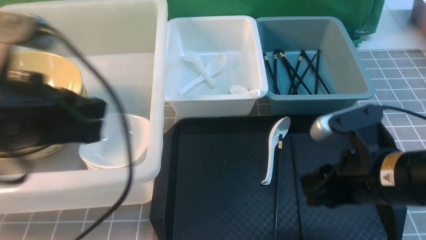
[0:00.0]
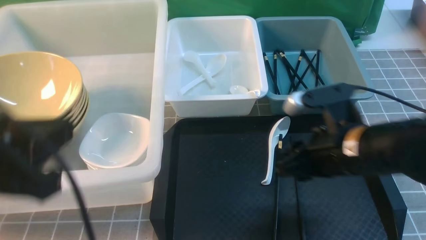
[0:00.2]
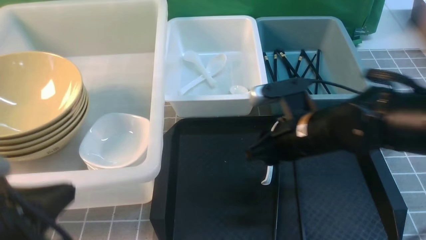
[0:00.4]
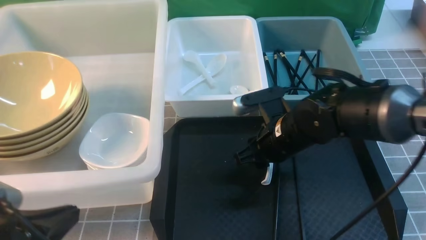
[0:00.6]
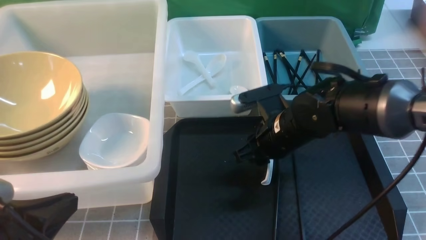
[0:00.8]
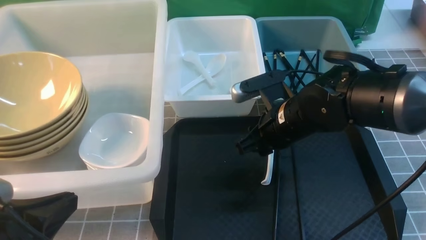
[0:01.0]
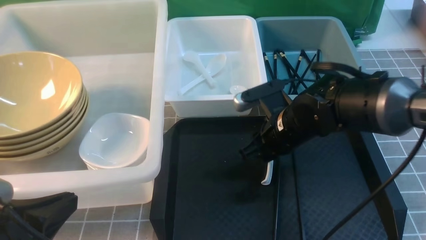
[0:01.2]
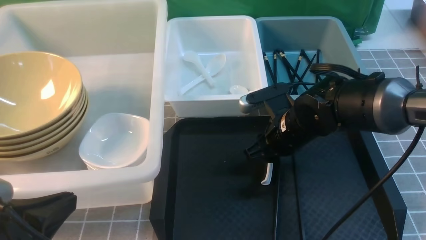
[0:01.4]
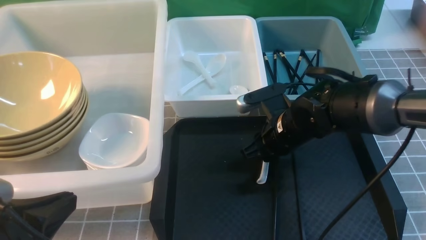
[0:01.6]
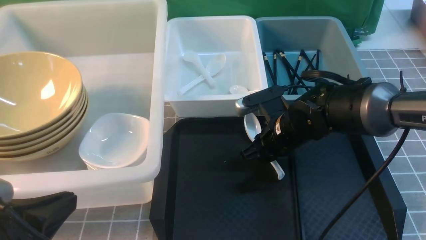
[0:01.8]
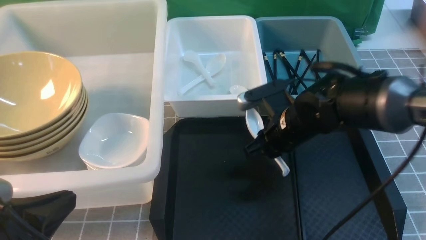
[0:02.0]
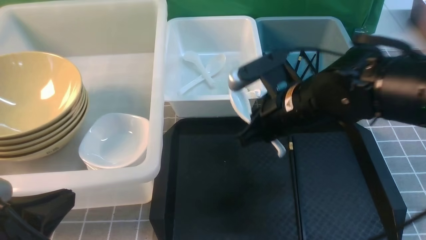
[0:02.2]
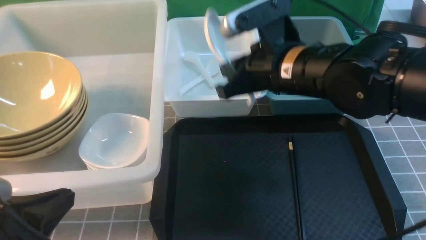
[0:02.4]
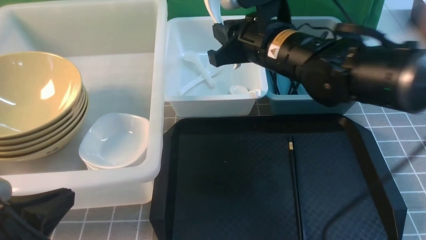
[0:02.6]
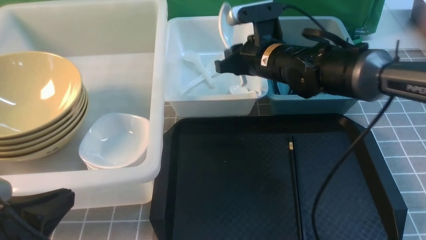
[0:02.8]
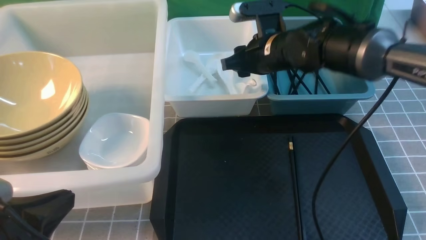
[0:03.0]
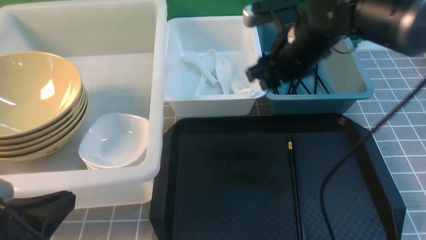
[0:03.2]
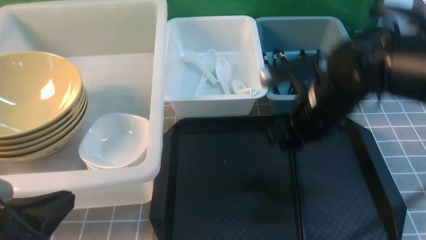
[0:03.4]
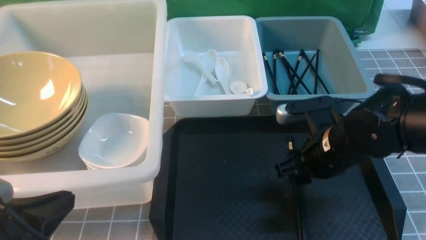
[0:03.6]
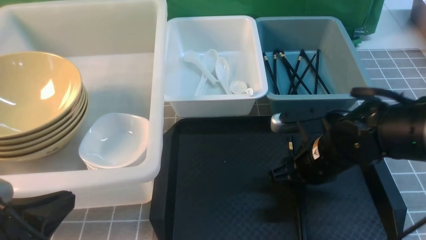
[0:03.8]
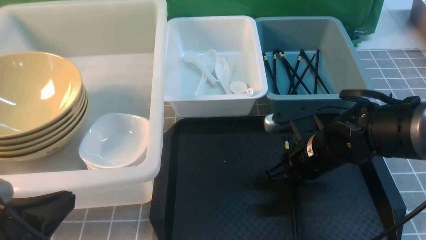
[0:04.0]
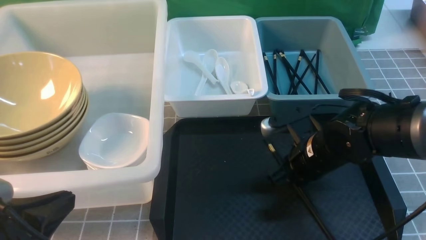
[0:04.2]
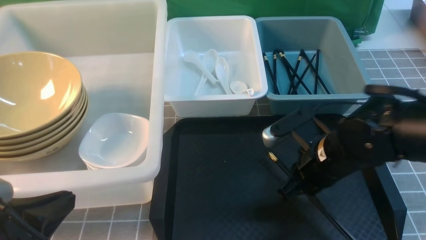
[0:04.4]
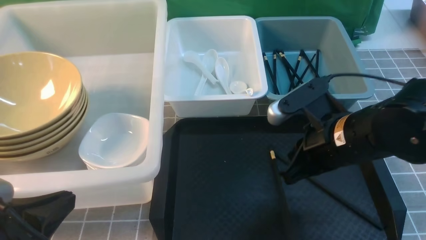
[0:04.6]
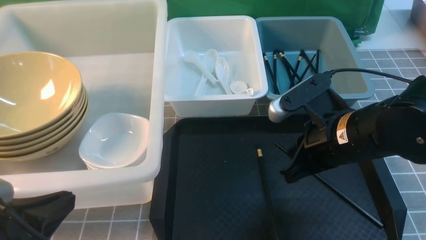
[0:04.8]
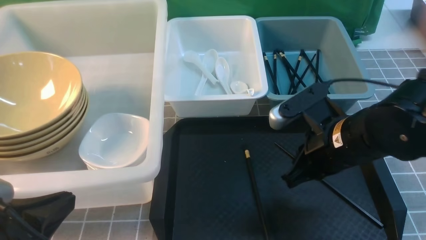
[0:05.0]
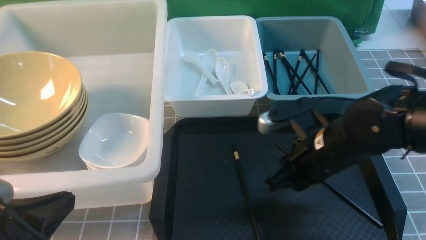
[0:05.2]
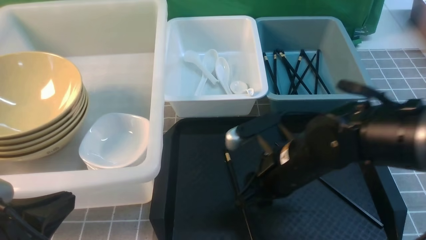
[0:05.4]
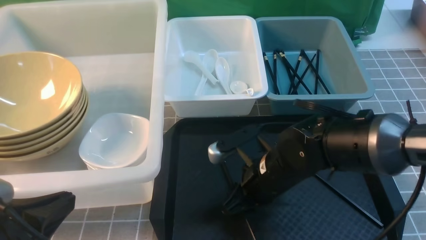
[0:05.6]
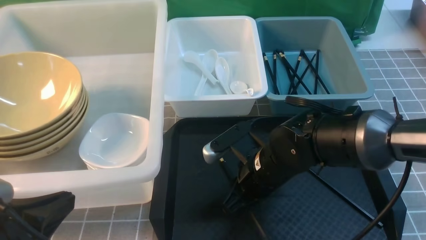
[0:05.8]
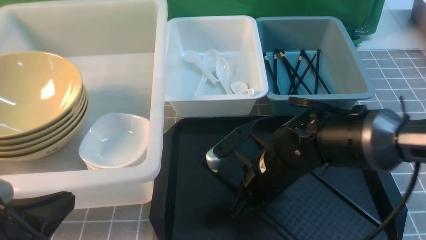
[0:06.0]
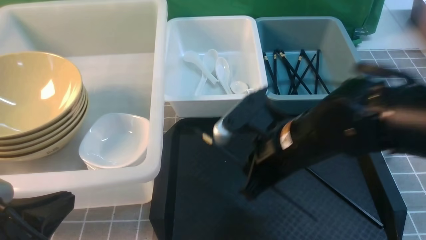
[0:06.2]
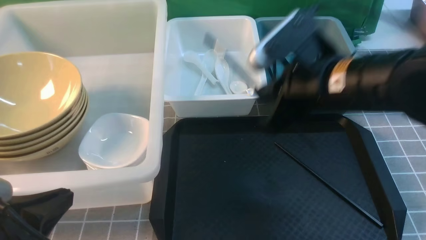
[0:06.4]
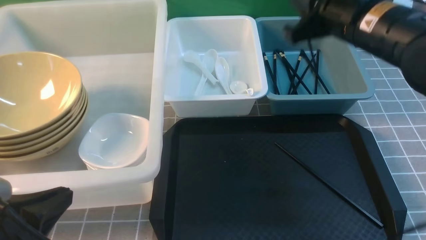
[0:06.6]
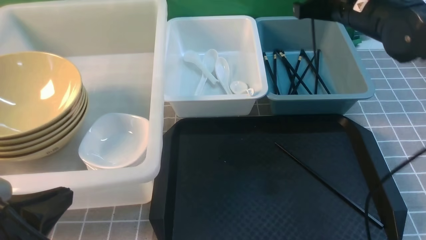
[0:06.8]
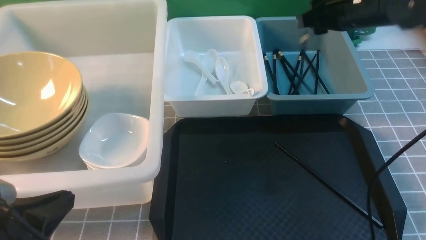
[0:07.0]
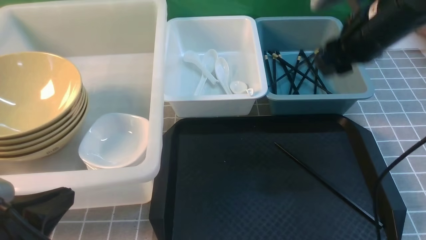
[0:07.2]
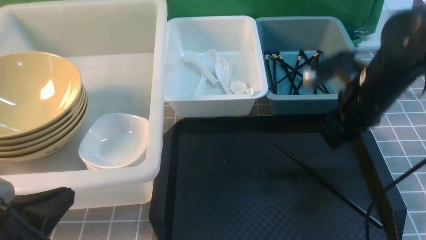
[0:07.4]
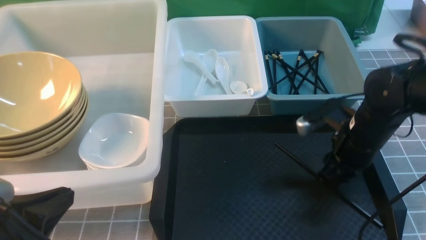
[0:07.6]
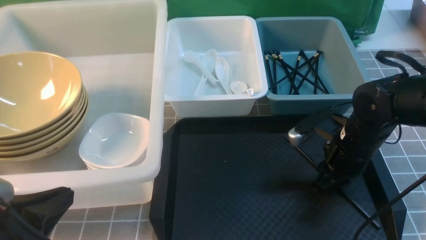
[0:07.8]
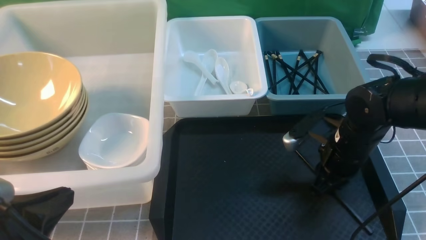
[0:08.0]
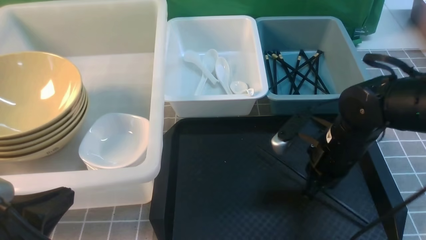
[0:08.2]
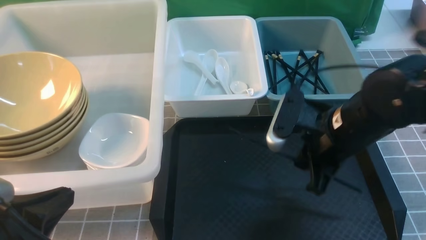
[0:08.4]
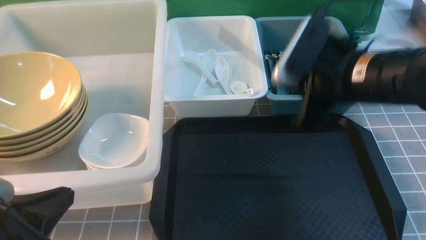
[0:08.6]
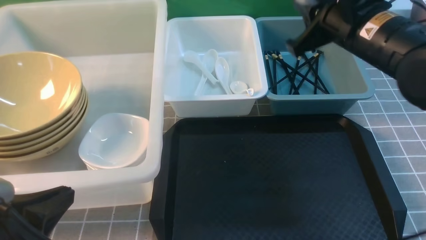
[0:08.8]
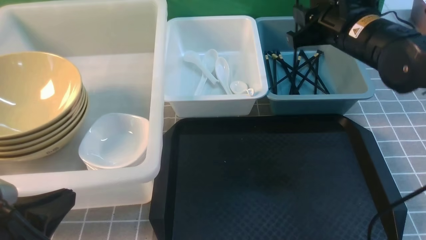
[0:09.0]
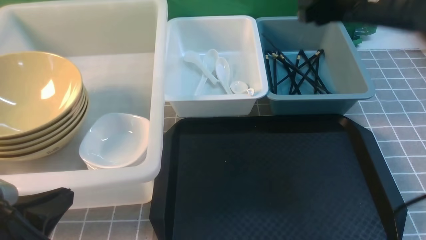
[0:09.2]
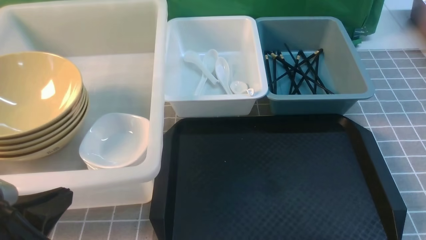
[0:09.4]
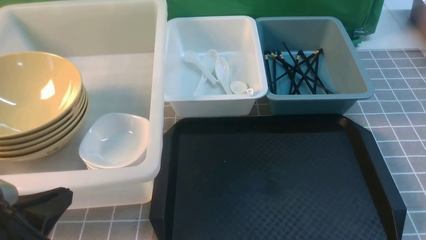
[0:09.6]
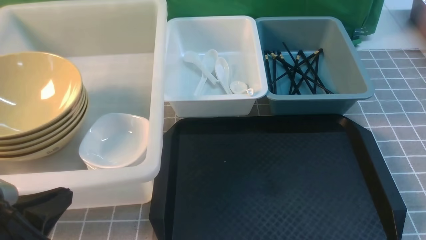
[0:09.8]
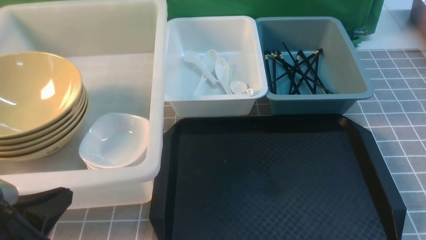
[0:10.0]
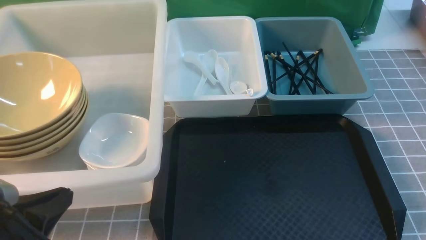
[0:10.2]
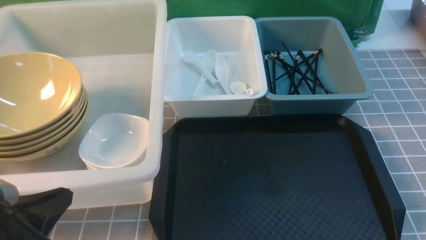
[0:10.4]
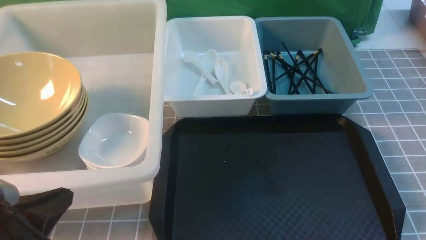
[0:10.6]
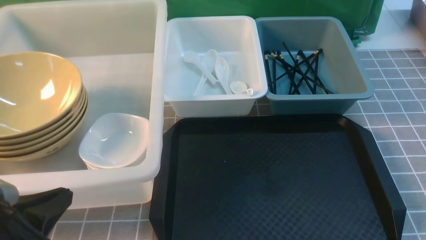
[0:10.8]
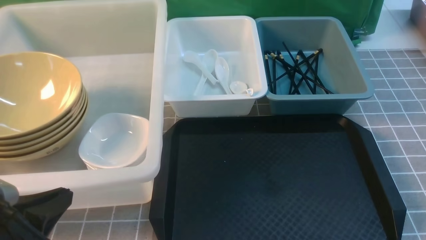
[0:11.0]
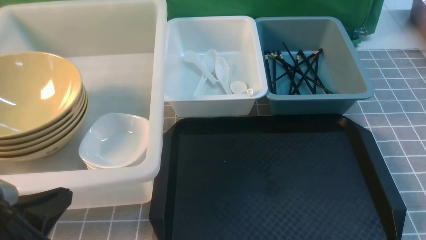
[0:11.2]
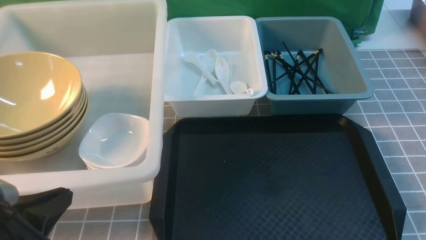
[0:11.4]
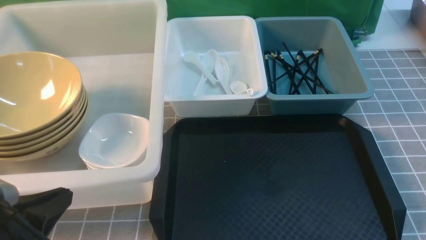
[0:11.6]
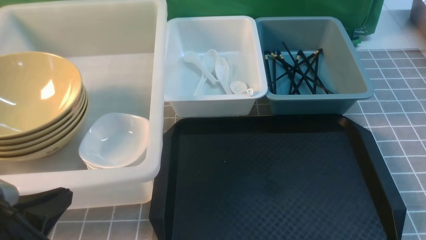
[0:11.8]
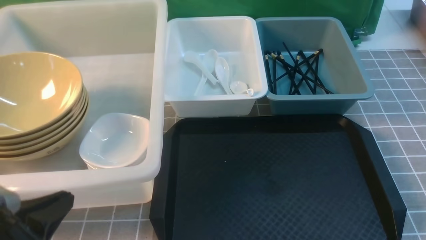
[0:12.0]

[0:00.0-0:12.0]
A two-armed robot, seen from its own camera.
Task of the whole recording: on grey table put chopsticks spoon bowls plates into blue grey white boxes.
Step, 0:00.0 to 0:02.0: use the right arm to grab the soup spoon in the middle.
Step, 0:02.2 to 0:03.0: use the right arm to put the soup spoon into the small storage box in the middle.
Step, 0:03.2 to 0:06.2: use the right arm to grab a chopstick.
Step, 0:06.4 to 0:07.0: use the right arm to put a chopstick into the small storage box on the right.
Step, 0:07.2 to 0:08.6: use the right arm to grab a chopstick.
Step, 0:08.8 to 0:09.2: use the right arm to put a chopstick into the small storage box on the right.
0:00.0 to 0:01.6: The right gripper goes some 15 cm forward, downward and to the left, while the left gripper is displaced downward and backward by roughly 10 cm.
0:01.6 to 0:03.0: The right gripper goes approximately 10 cm upward and forward.
0:03.0 to 0:04.4: The right gripper goes roughly 15 cm backward, and closes its fingers.
0:04.4 to 0:06.0: The right gripper travels to the left by approximately 5 cm, and opens, then closes again.
0:06.0 to 0:07.6: The right gripper moves to the right and forward, approximately 15 cm, and moves about 15 cm upward and comes back.
0:07.6 to 0:09.0: The right gripper moves upward, approximately 15 cm, and closes, then reopens.
0:09.0 to 0:10.4: The right gripper shifts about 35 cm backward and downward, and closes its fingers.

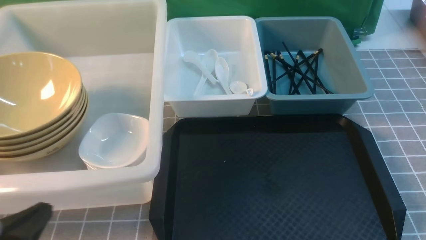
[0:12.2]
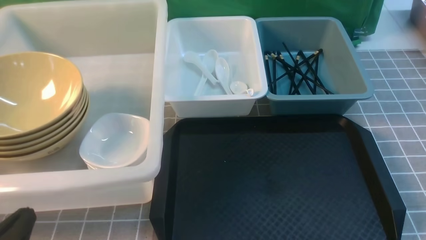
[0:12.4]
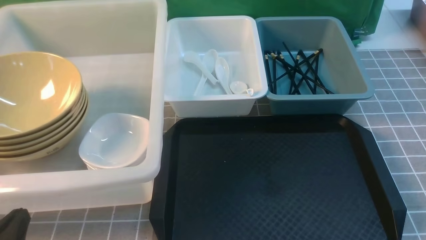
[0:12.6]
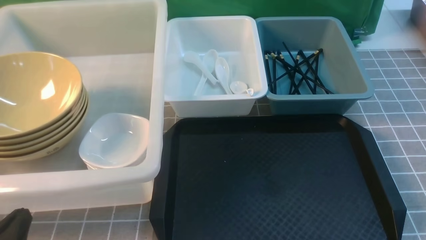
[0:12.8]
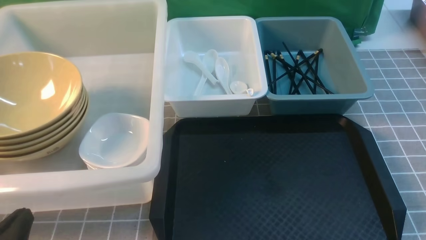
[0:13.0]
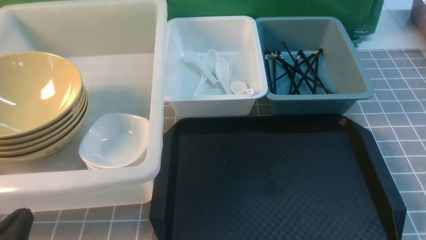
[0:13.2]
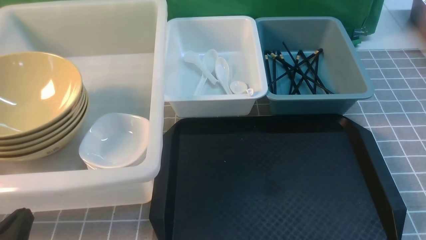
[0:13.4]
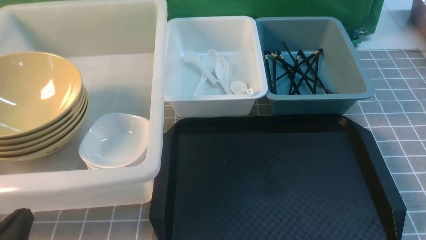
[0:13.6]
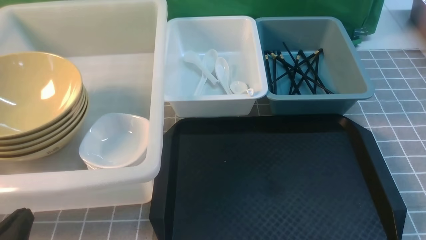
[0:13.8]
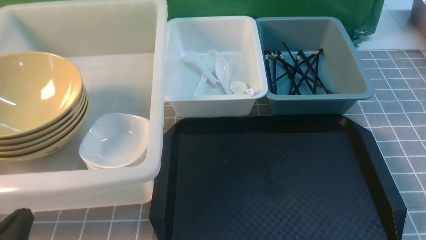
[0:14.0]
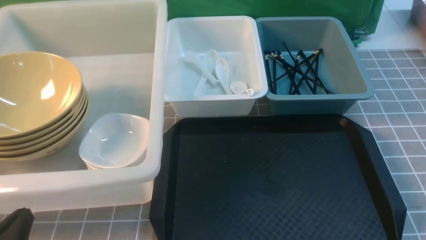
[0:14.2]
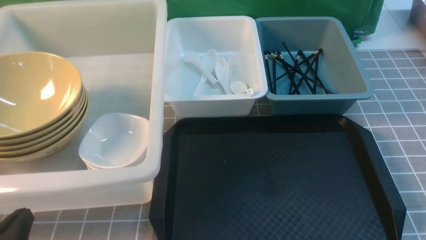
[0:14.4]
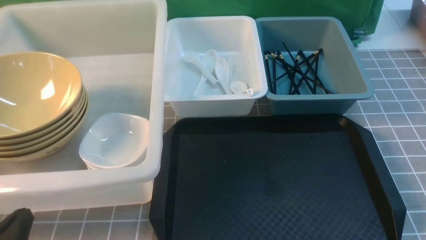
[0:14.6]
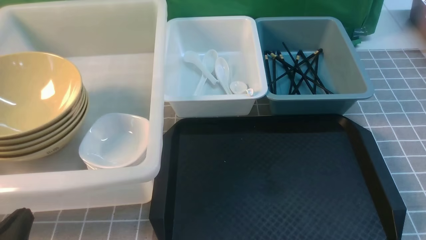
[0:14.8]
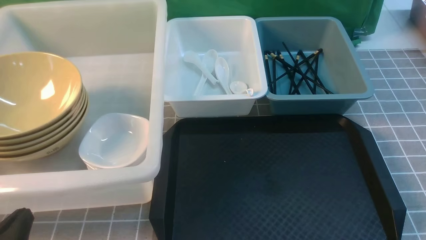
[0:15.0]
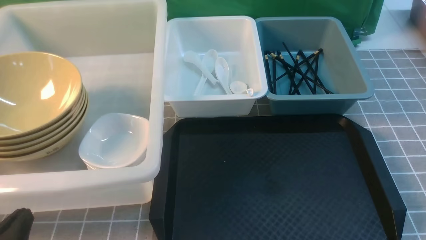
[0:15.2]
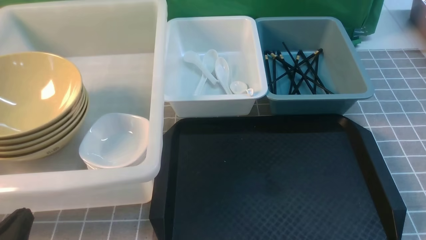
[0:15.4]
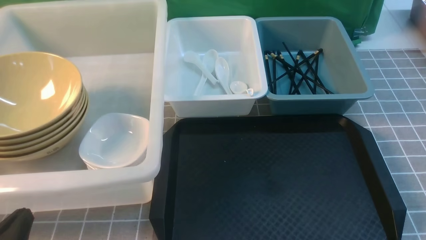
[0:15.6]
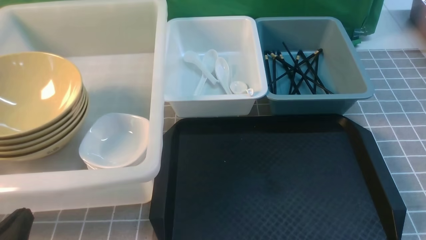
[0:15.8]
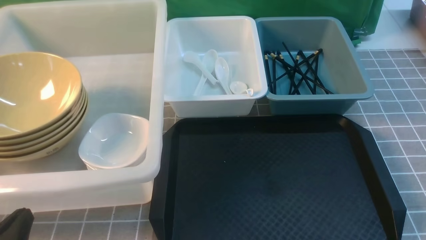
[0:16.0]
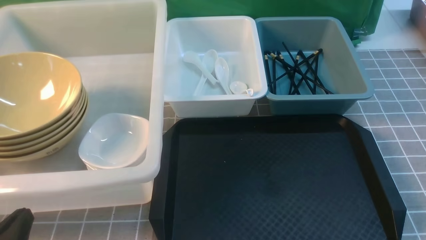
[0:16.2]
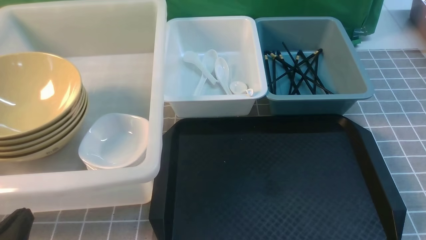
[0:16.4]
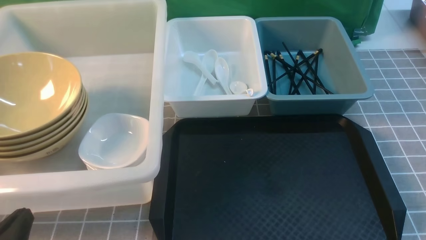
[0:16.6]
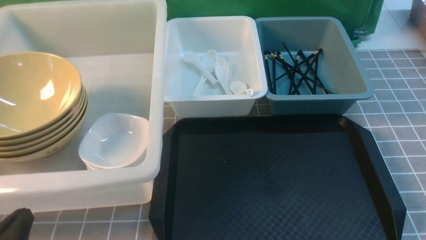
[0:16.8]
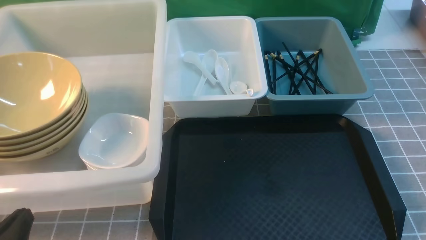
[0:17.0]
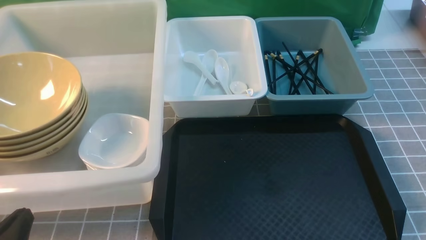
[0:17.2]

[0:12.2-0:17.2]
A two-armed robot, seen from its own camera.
Task of the whole recording: on grey table put chopsticks spoon bowls plates into blue grey white boxes.
0:13.8 to 0:17.2: Both grippers stay put.
